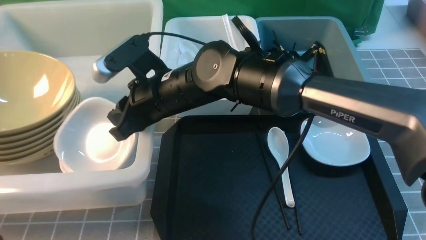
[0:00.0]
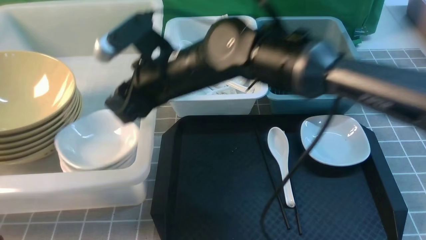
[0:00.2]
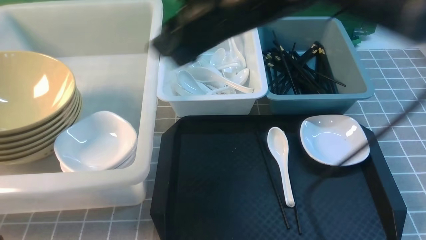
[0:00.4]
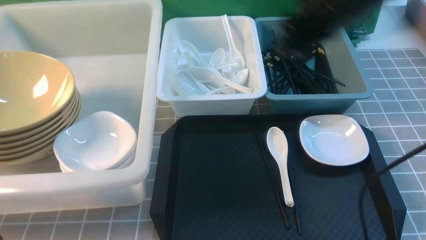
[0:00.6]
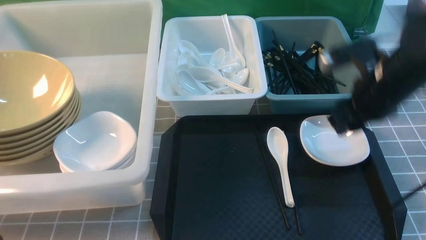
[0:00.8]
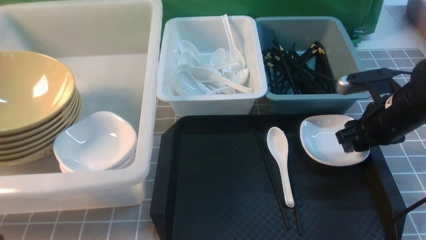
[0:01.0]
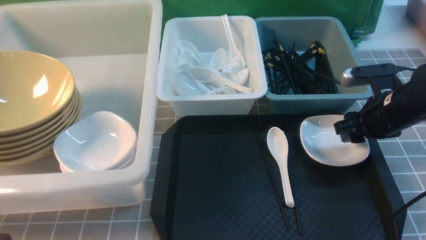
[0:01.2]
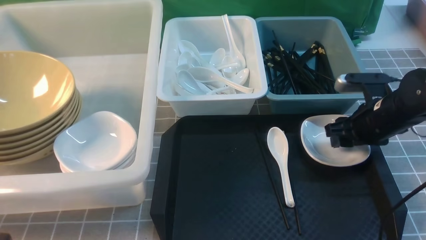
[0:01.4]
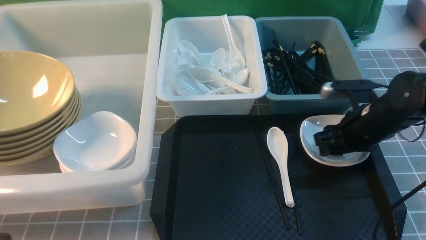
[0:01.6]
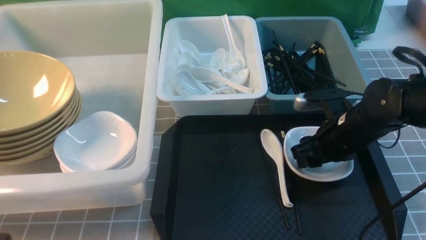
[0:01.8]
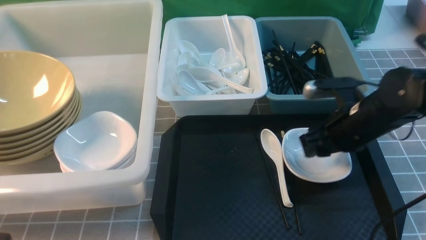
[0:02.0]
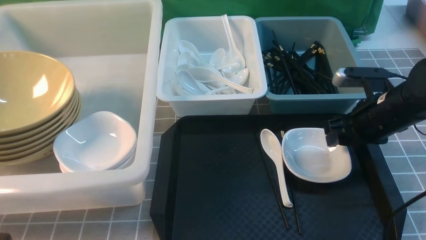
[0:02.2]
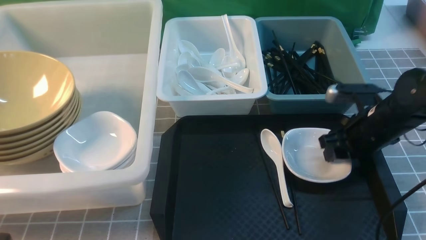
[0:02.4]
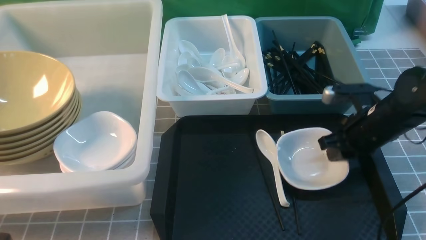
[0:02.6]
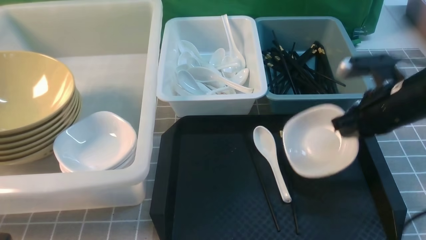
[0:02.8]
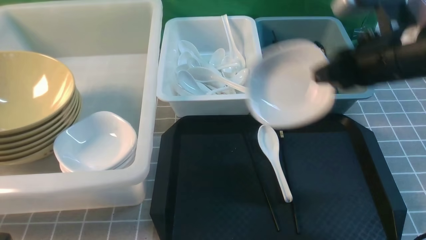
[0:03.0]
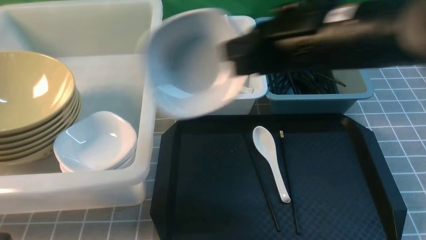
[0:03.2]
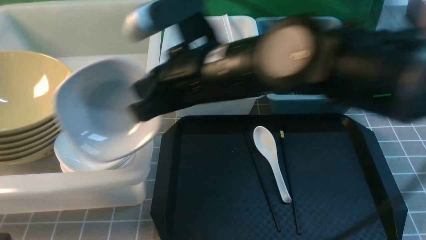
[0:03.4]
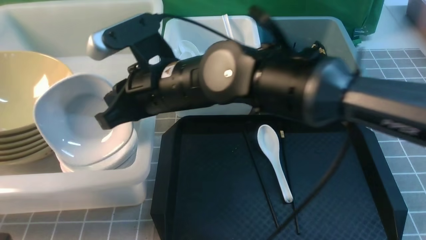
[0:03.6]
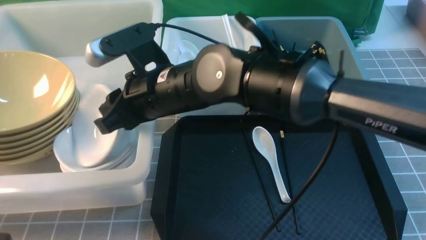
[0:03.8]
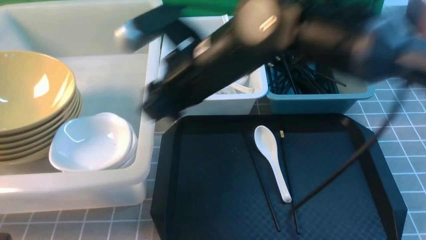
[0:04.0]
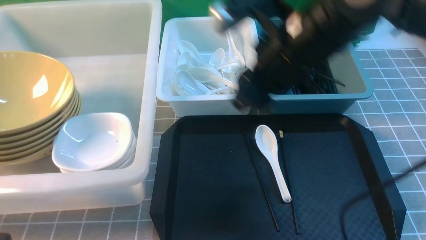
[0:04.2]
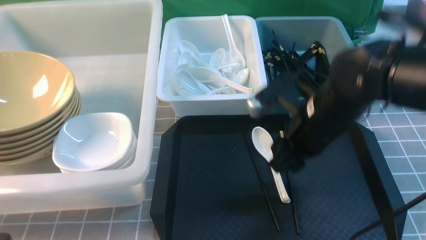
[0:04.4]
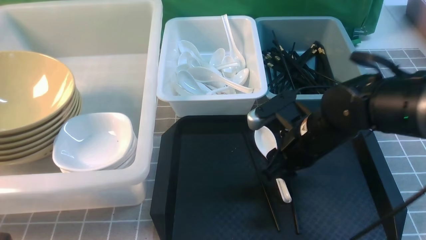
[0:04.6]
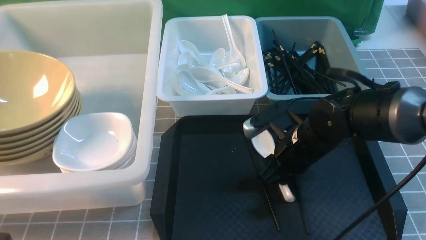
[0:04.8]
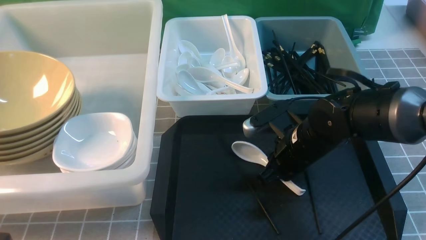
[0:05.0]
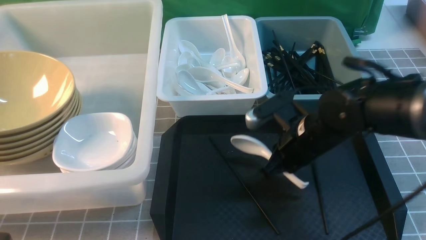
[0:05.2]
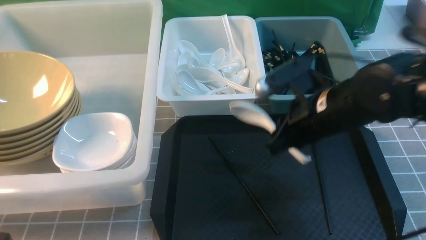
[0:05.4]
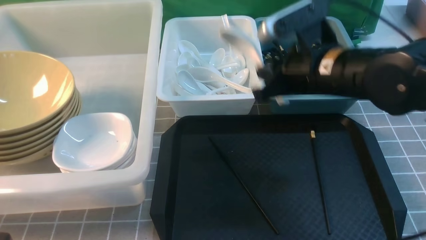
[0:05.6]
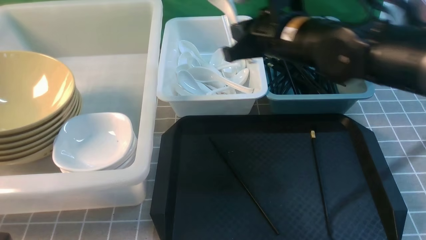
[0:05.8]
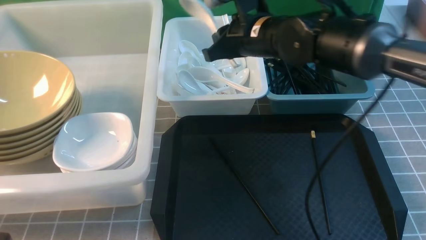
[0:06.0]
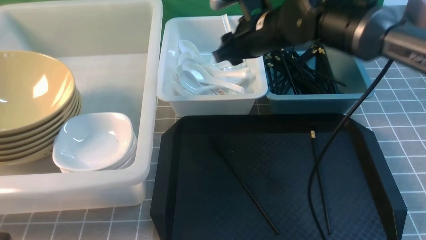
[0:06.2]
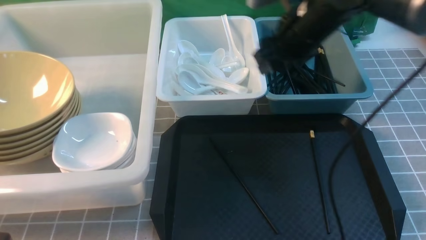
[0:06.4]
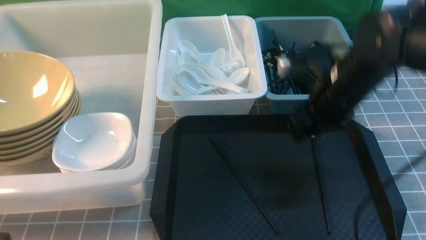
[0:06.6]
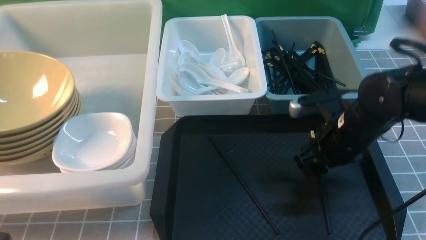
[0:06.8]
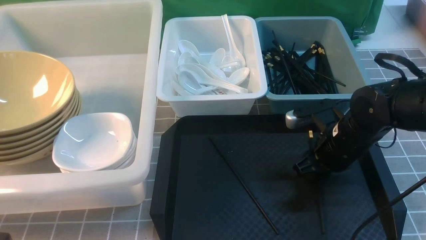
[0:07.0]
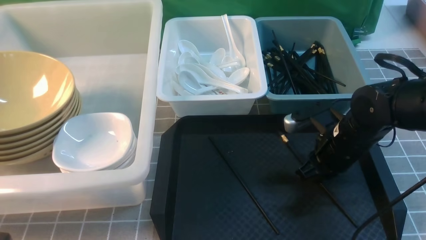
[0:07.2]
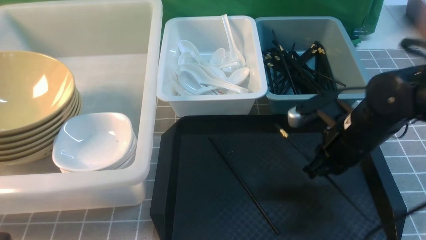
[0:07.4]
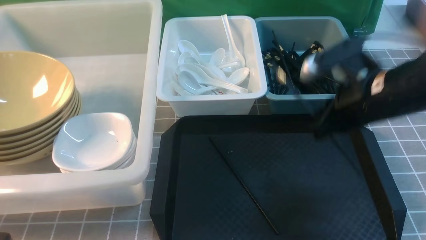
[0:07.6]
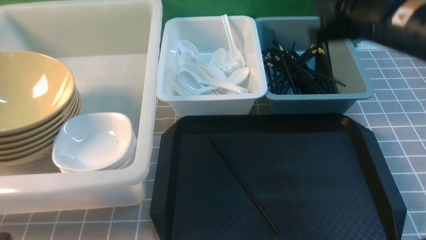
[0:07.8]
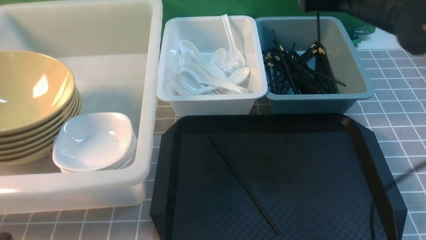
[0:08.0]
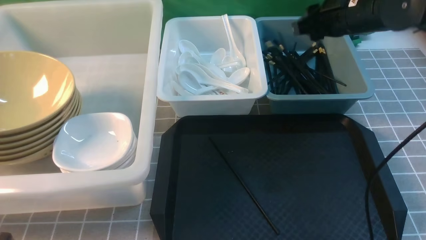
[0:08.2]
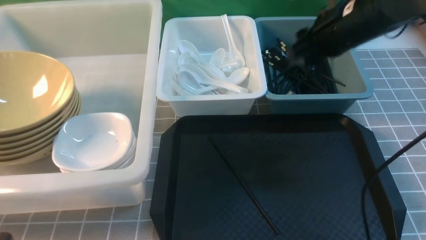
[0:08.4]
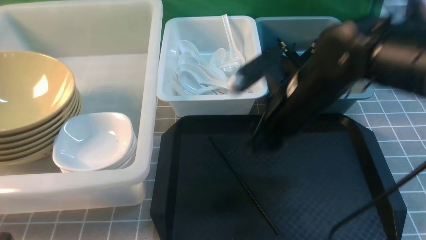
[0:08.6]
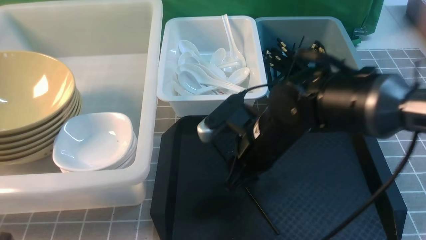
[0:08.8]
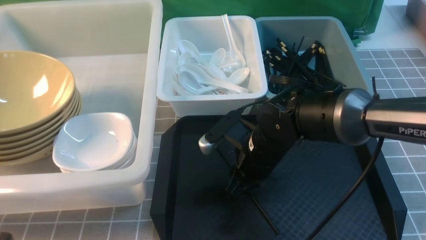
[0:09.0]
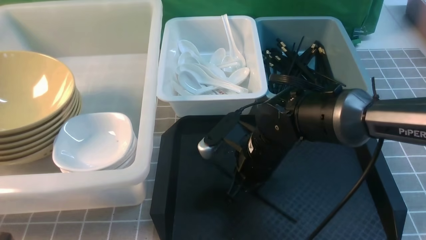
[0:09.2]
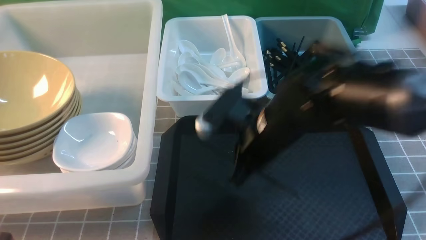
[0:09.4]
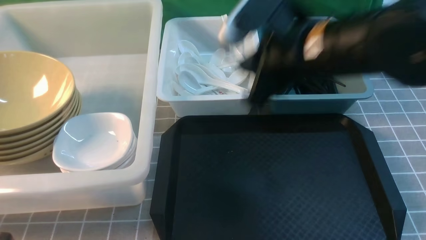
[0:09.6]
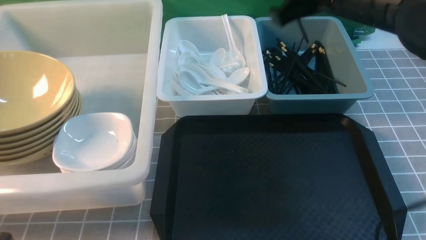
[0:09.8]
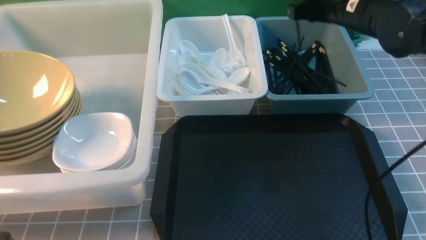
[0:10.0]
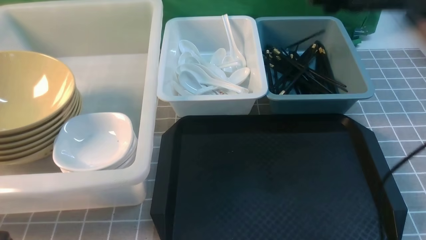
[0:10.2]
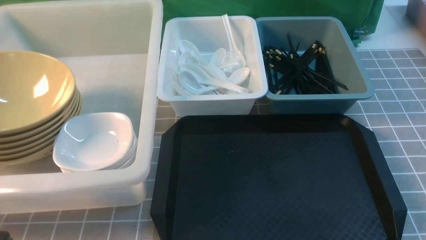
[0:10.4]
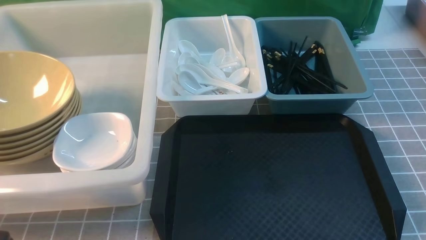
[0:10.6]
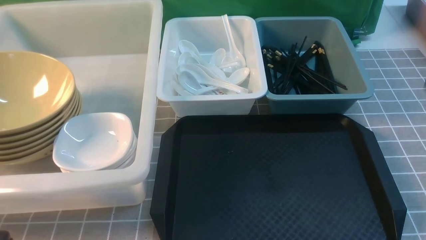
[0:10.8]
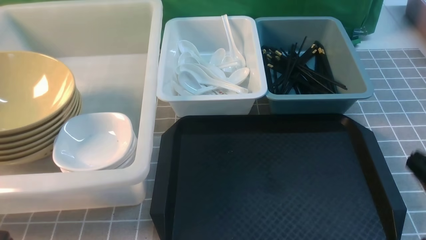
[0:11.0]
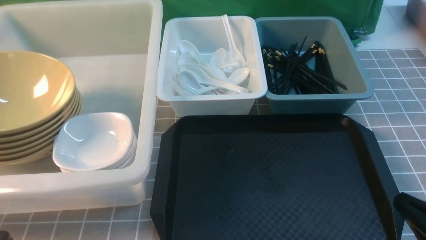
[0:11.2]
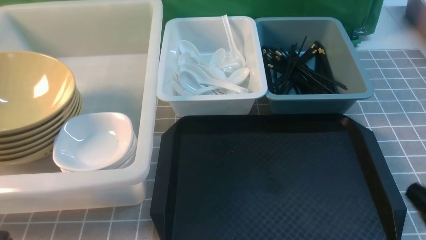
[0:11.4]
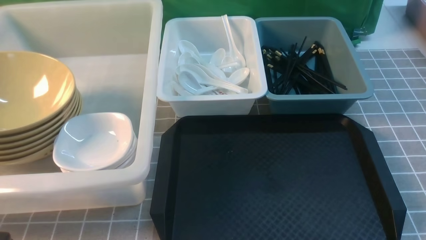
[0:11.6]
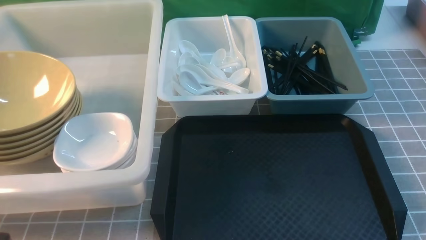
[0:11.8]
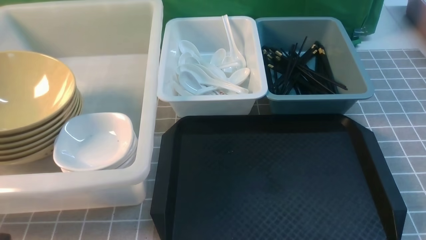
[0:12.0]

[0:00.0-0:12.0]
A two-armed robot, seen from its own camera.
Task of the whole recording: on grey table put chopsticks spoon bowls plates into blue grey white boxes.
Step, 0:00.4 to 0:02.8: use the right arm to grab the plate.
Step, 0:03.0 to 0:03.8: use the right arm to put the plate into the large storage box on the left.
Step, 0:04.2 to 0:05.2: use the right arm to grab the soup spoon in the middle.
Step, 0:05.4 to 0:06.2: use the right arm to put the soup spoon into the small storage box in the middle.
Step, 0:06.4 to 0:07.2: use the right arm to grab a chopstick.
Step, 0:07.6 to 0:08.0: use the right arm to put a chopstick into the small storage box on the right.
Step, 0:08.2 to 0:09.4: use the right arm to grab a chopstick.
Step, 0:09.6 to 0:10.2: use the right arm to put a chopstick into the small storage box on the right.
0:00.0 to 0:01.6: The right gripper moves to the right, about 30 cm, and opens up.
0:01.6 to 0:03.0: The right gripper travels upward by approximately 15 cm, and closes up.
0:03.0 to 0:04.4: The right gripper is displaced downward by about 10 cm, travels to the left and back again, about 20 cm each way, and opens its fingers.
0:04.4 to 0:06.0: The right gripper travels forward by roughly 10 cm, and closes up.
0:06.0 to 0:07.6: The right gripper shifts roughly 15 cm backward and to the right, and closes.
0:07.6 to 0:09.0: The right gripper moves to the left and downward, roughly 15 cm, and opens.
0:09.0 to 0:10.4: The right gripper goes approximately 30 cm upward and to the right.

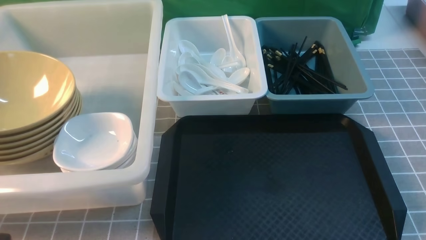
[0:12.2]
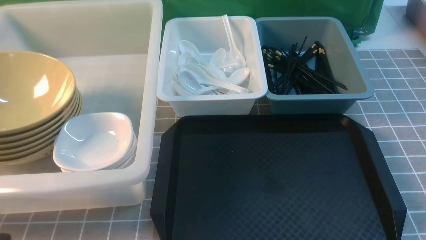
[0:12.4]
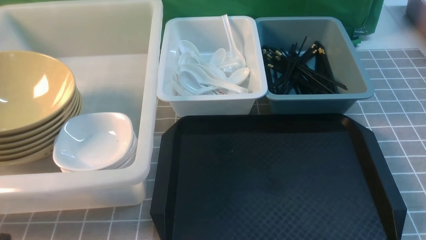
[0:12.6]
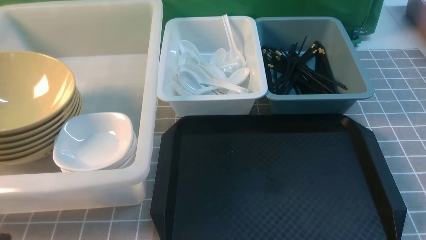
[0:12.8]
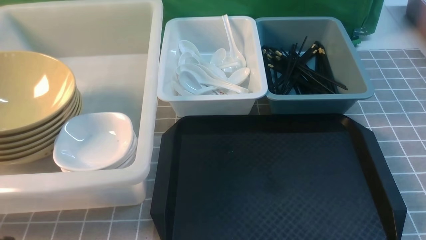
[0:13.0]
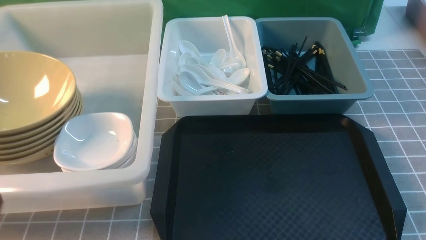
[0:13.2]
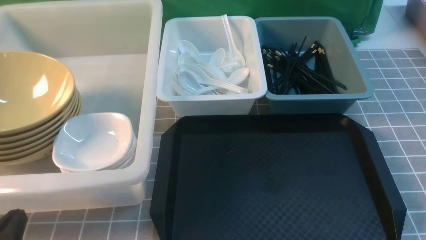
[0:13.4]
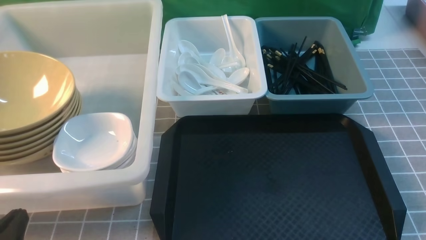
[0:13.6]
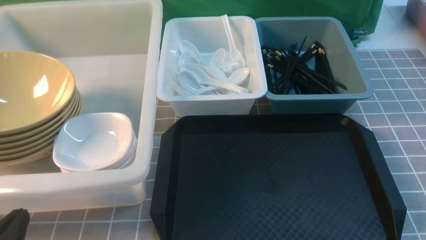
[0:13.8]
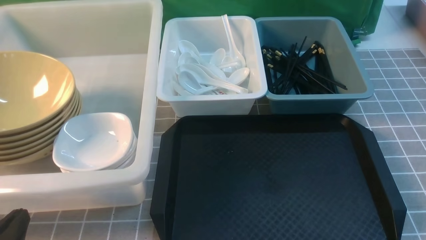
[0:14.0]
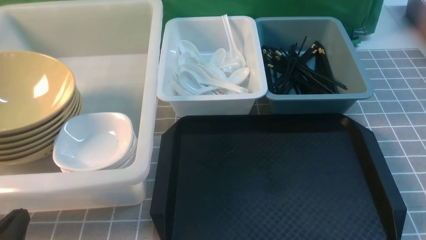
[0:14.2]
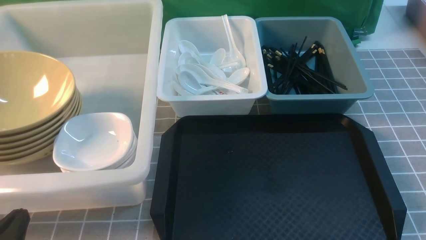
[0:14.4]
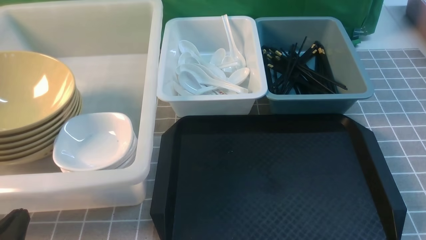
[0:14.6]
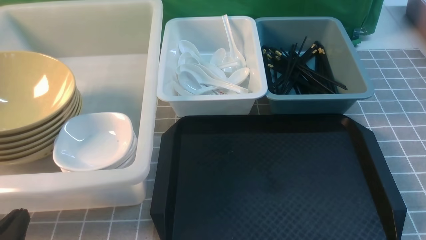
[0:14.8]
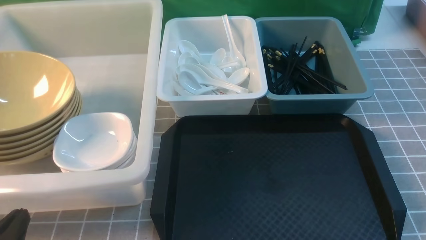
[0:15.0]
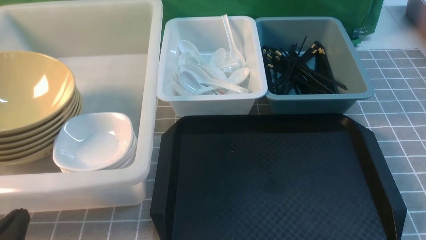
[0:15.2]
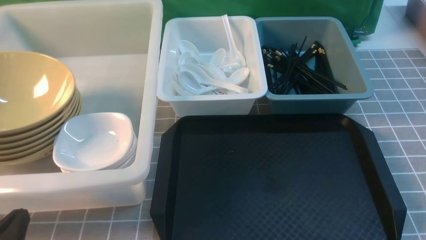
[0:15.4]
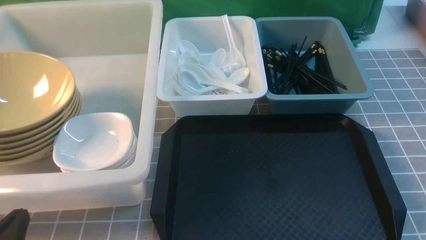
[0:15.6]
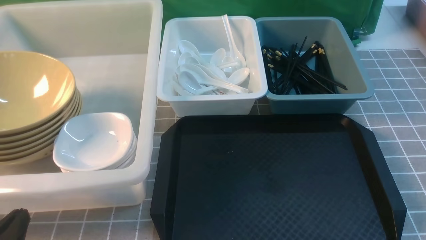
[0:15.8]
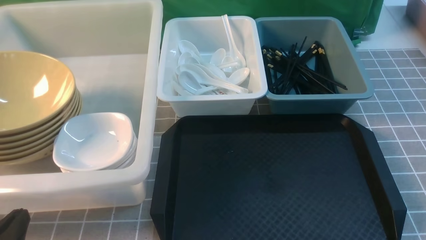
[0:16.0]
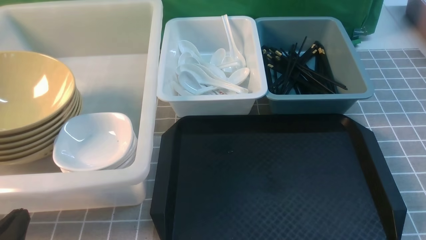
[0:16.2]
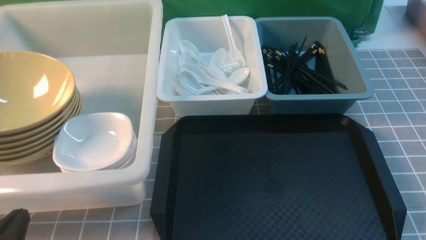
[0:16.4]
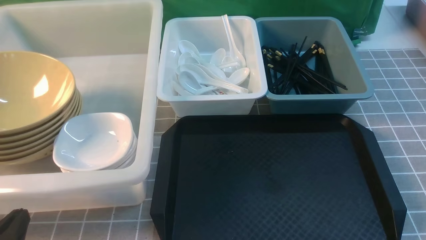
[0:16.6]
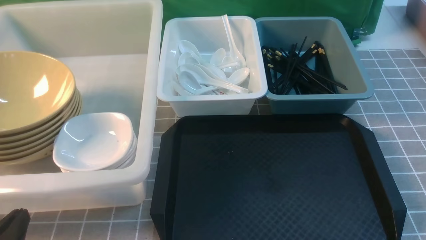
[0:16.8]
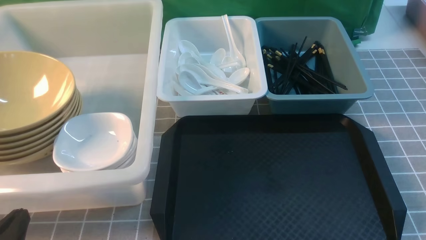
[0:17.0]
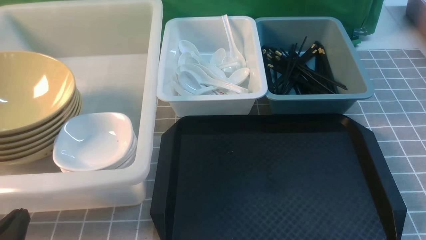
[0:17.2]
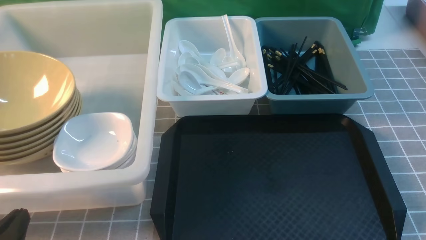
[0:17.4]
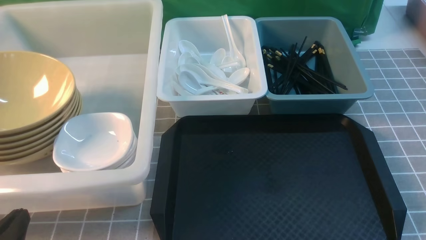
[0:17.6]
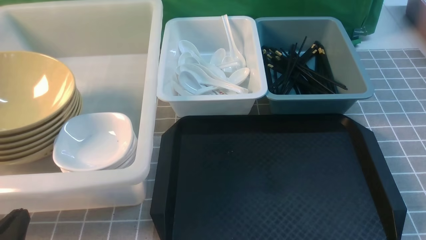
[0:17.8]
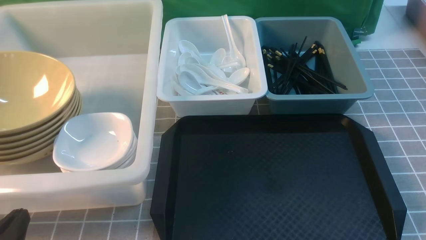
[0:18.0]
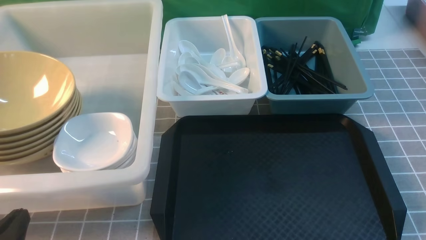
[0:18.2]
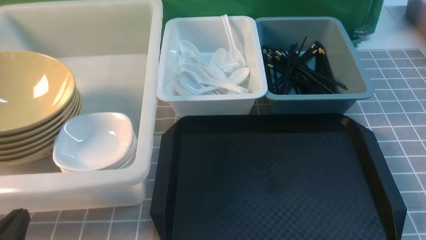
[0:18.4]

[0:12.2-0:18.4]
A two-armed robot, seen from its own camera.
Task of the whole recording: on grey table put chopsticks spoon bowls plates into blue grey white boxes.
0:12.2 to 0:13.8: The left gripper goes roughly 10 cm downward.
0:13.8 to 0:18.4: Both grippers stay put.
